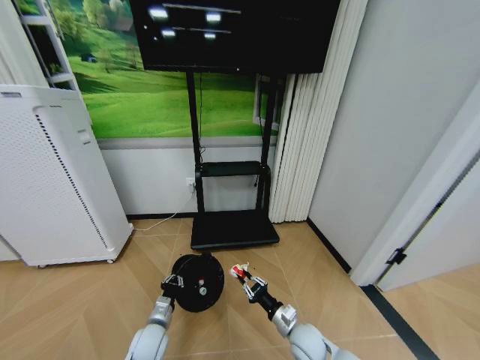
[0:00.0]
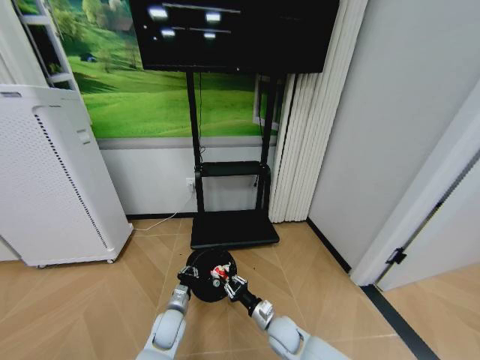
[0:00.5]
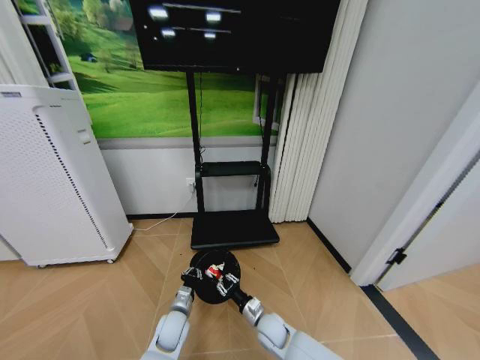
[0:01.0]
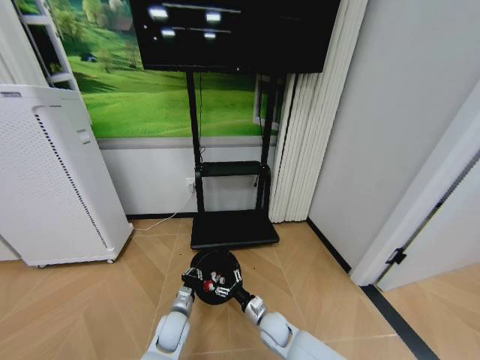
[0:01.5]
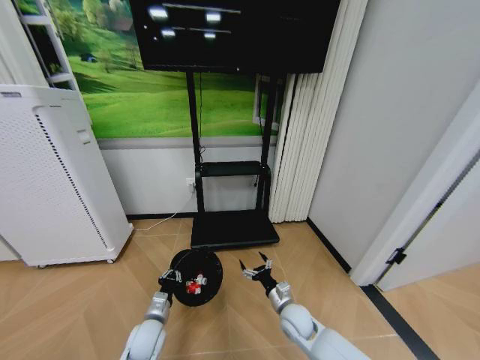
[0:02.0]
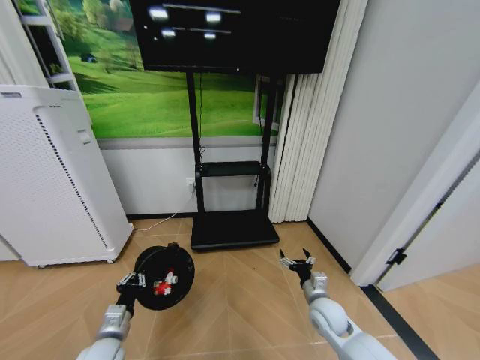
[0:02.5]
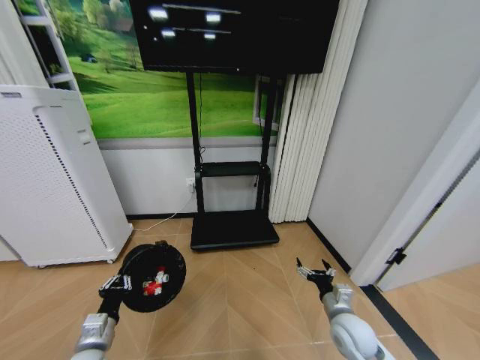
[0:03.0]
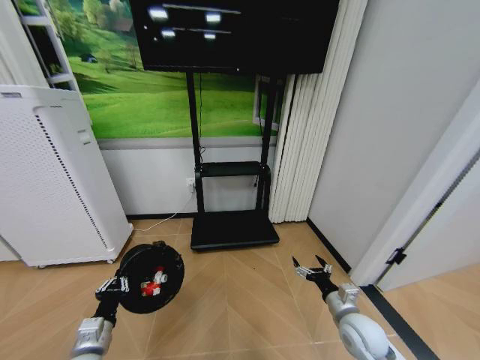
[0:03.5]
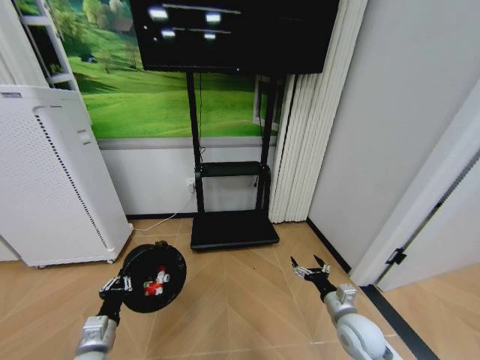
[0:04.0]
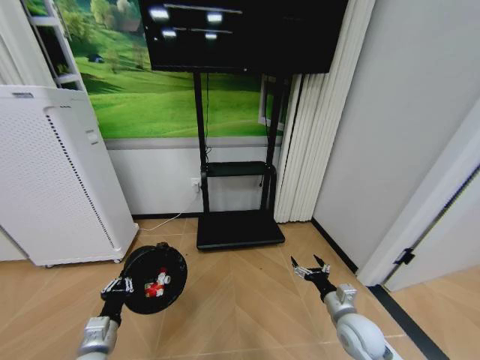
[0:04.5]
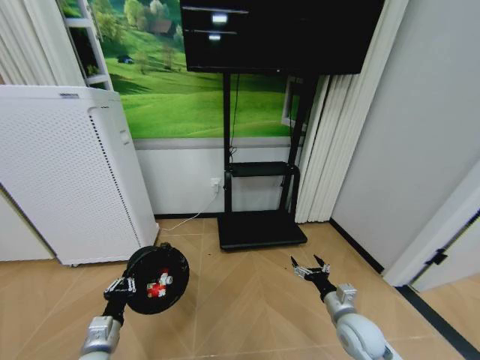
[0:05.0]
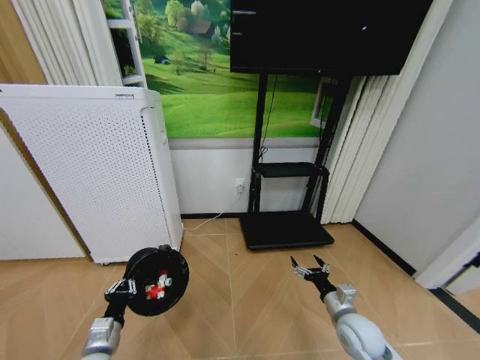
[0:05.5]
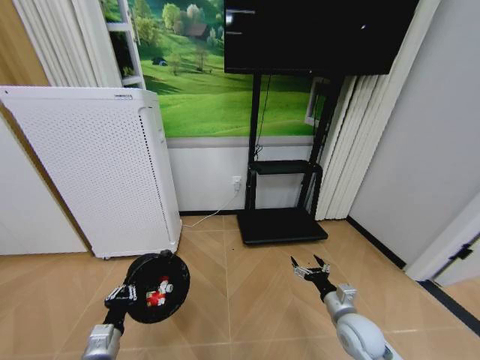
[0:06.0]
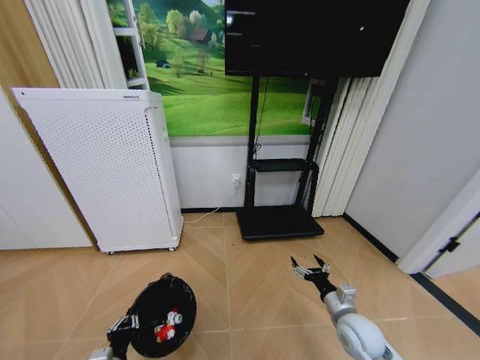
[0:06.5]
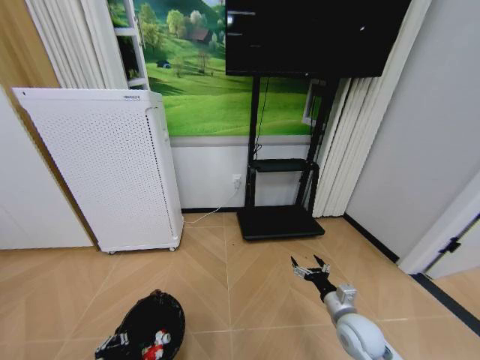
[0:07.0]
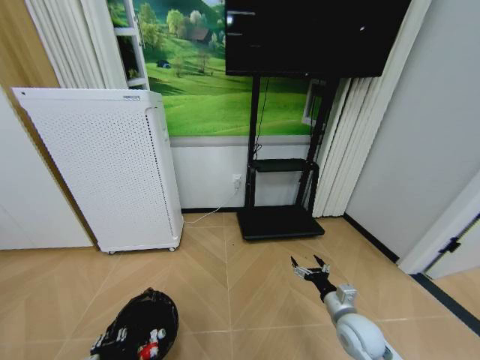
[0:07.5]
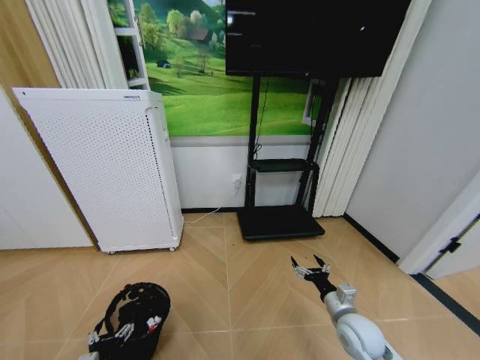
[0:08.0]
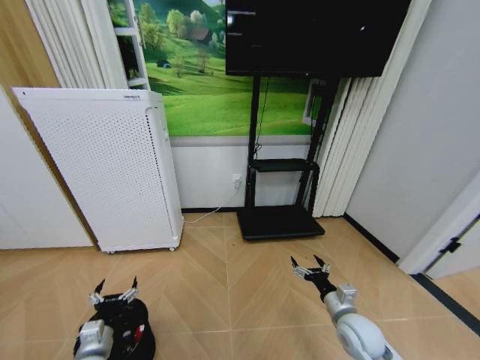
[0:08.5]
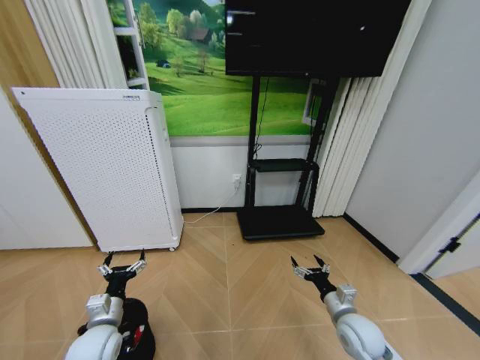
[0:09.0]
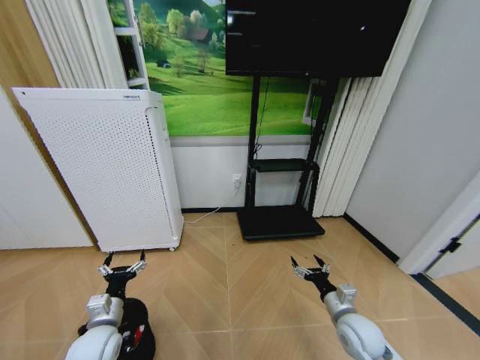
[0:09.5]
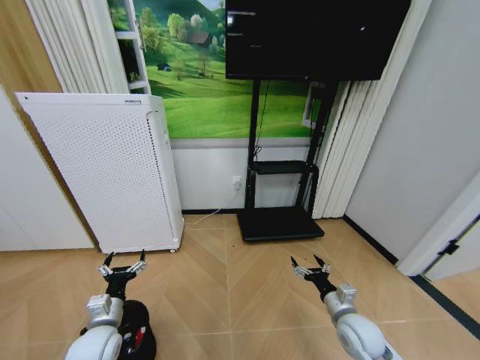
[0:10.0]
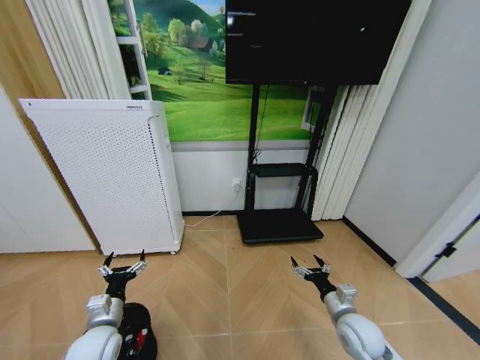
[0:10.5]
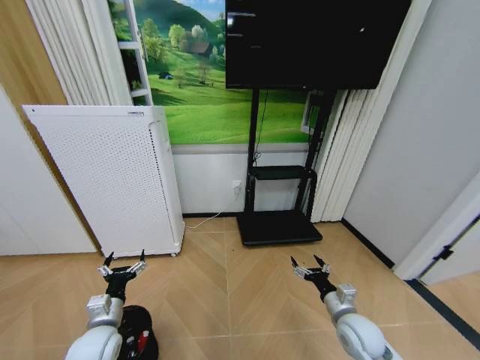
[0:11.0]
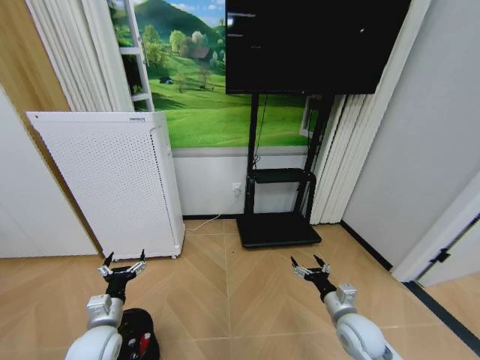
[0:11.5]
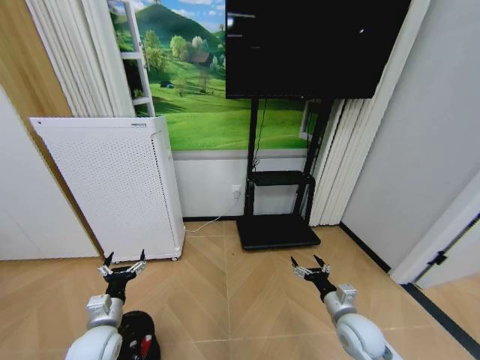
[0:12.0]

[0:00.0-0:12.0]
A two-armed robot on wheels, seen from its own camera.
Task of the whole recording: Pick up the trash bin and place the garbage on the floor into it.
0:00.0 to 0:02.0: The right gripper heads forward, covering some 5 cm, travels to the left and back again, roughly 10 cm each way, and opens its fingers.
0:02.0 to 0:04.0: The left gripper is displaced backward, to the left and upward by some 15 cm. Meanwhile the right gripper heads to the right, upward and backward, covering approximately 15 cm.
0:06.0 to 0:08.0: The left gripper ends up some 5 cm from where it was, and opens its fingers.
0:08.0 to 0:10.0: The left gripper shifts roughly 15 cm forward and upward.
0:10.0 to 0:12.0: Both grippers stay put.

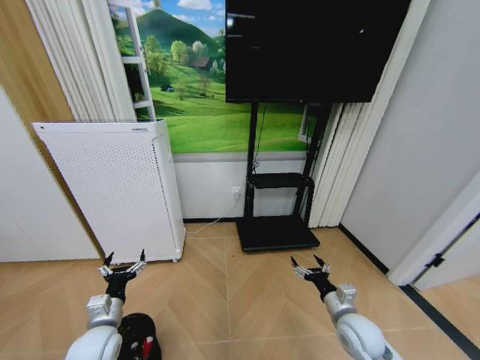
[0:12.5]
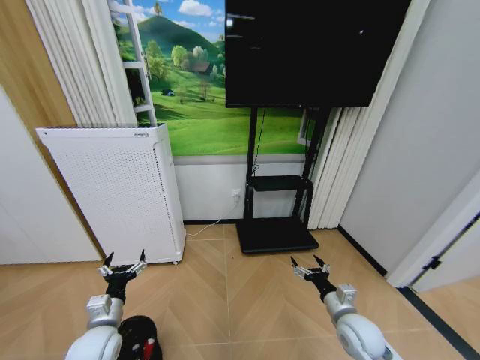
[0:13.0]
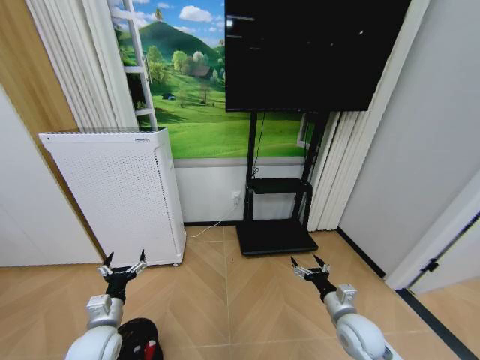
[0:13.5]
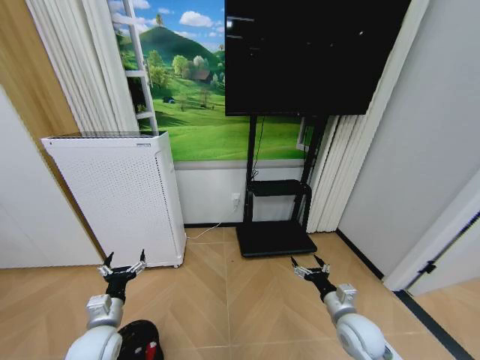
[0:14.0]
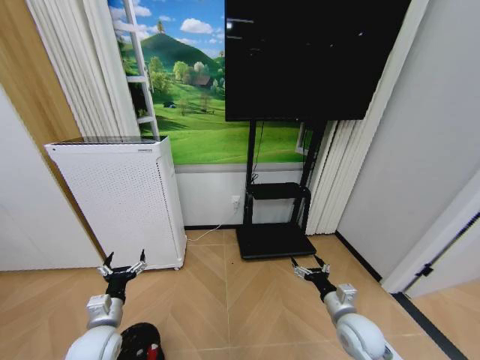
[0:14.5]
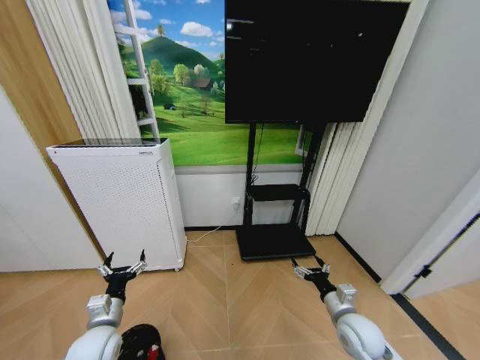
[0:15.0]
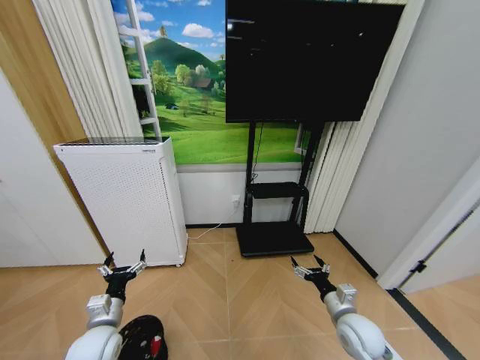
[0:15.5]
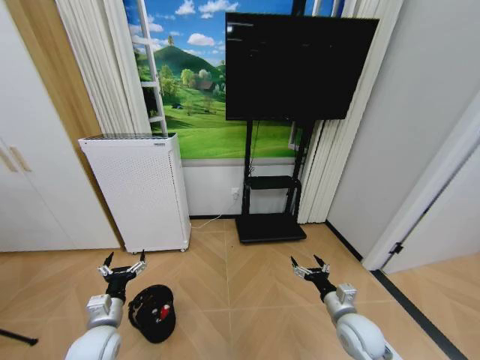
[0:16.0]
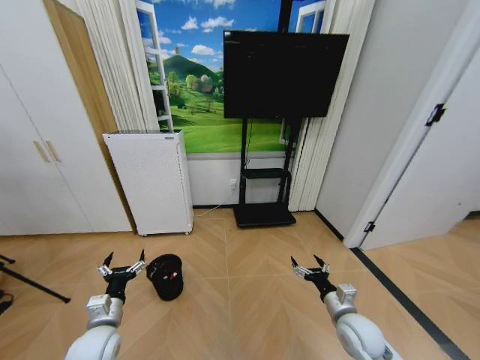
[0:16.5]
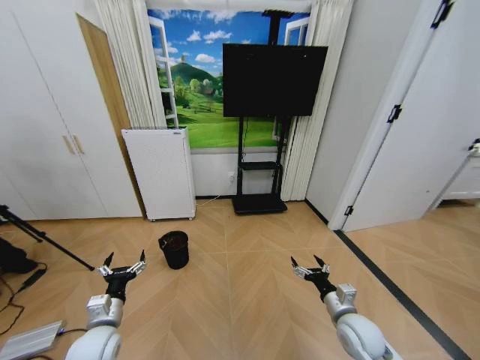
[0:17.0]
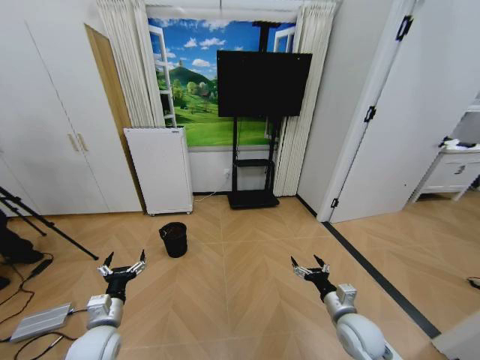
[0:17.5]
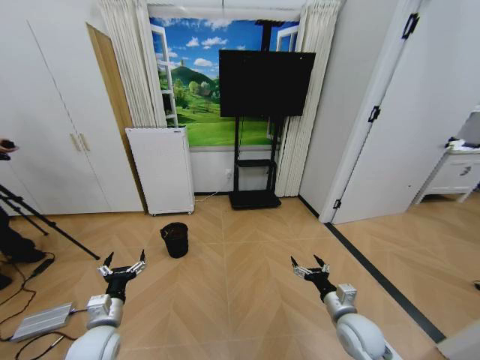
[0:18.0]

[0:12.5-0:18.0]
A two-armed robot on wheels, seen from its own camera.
Task of the whole recording: Pick up the trash bin and place the garbage on the floor into it.
0:12.5 to 0:14.5: The two grippers keep their place.
